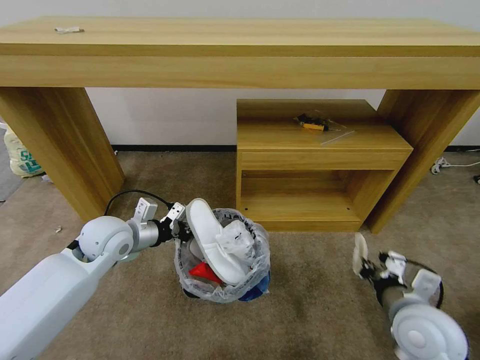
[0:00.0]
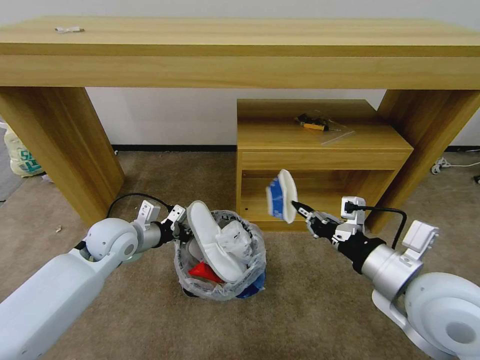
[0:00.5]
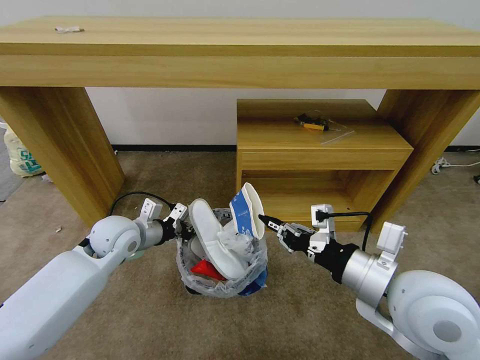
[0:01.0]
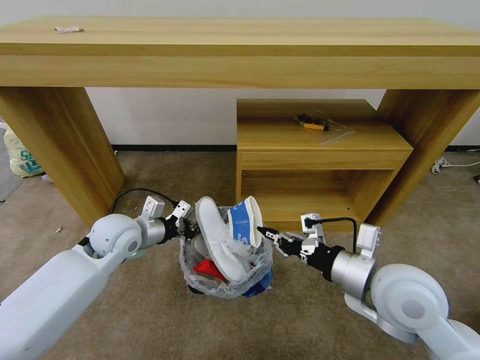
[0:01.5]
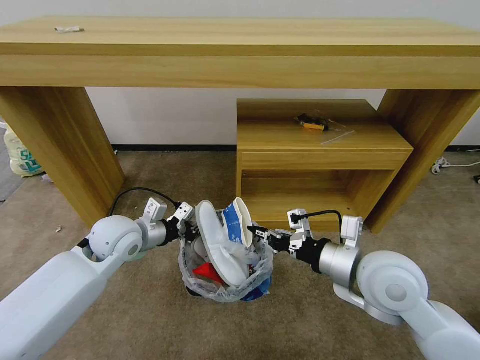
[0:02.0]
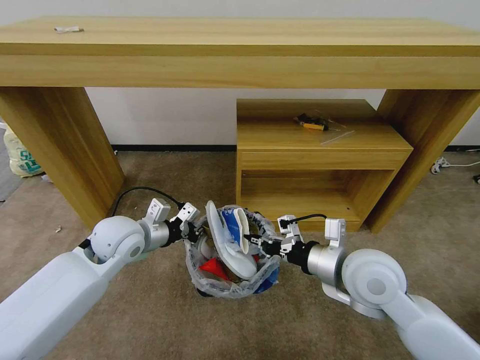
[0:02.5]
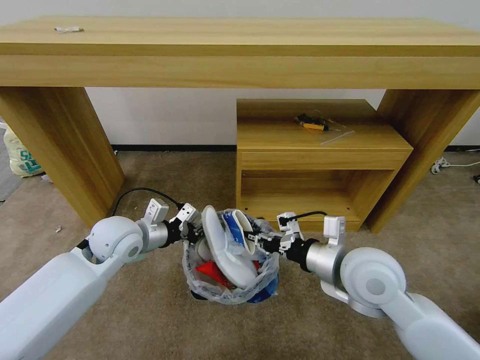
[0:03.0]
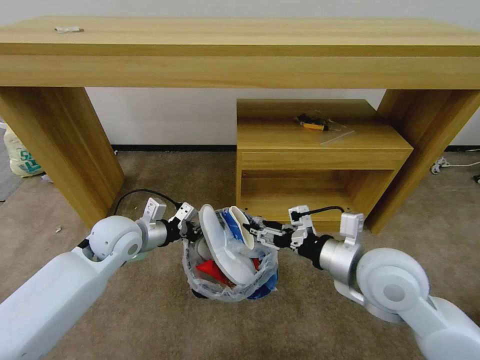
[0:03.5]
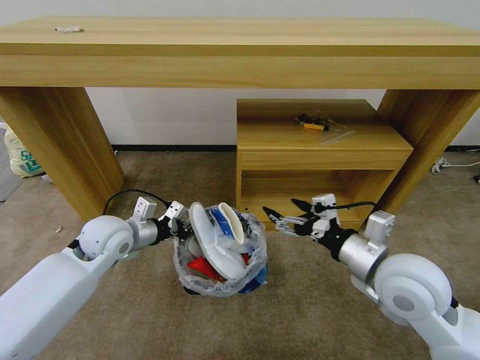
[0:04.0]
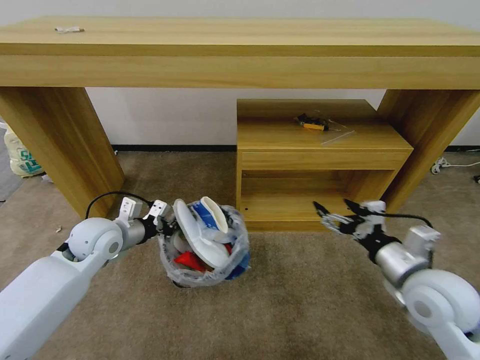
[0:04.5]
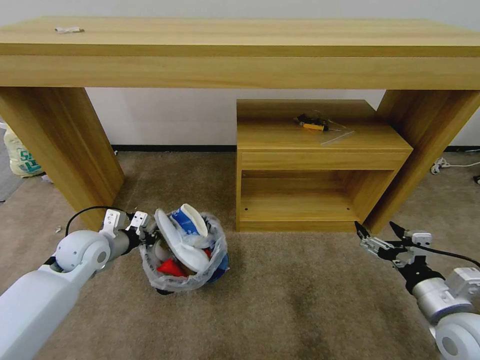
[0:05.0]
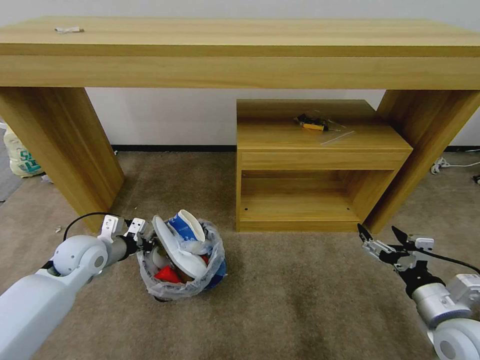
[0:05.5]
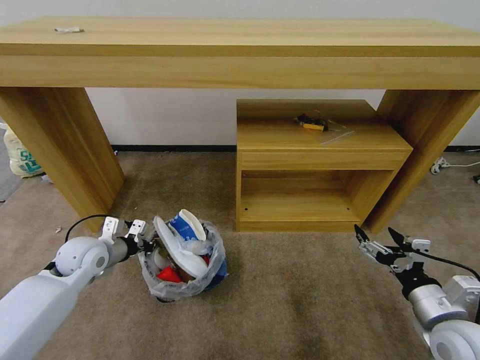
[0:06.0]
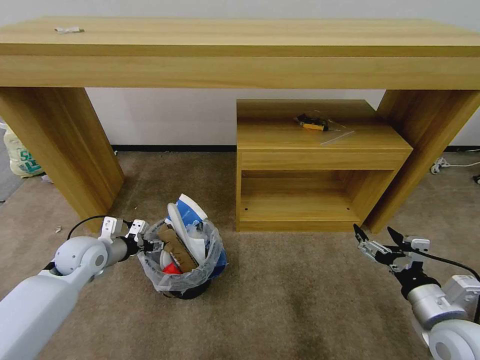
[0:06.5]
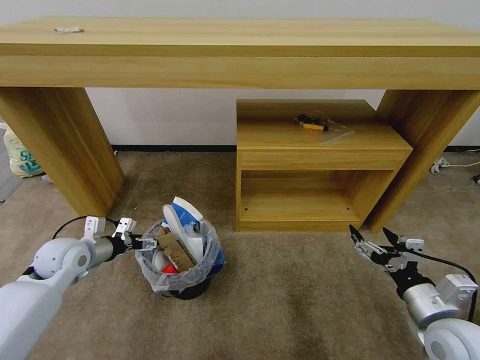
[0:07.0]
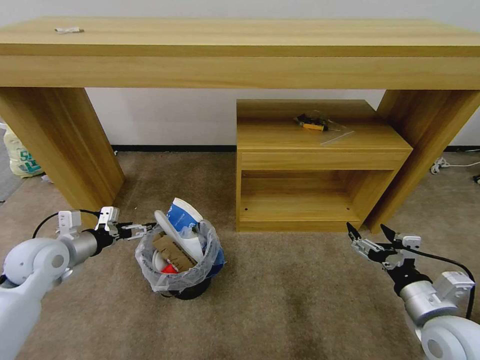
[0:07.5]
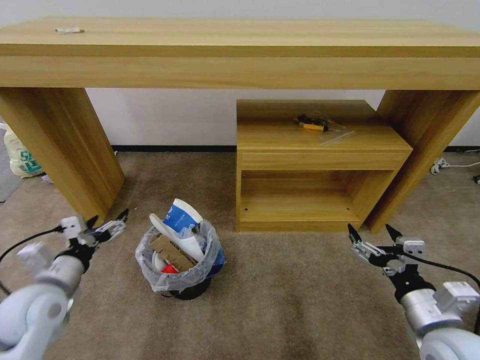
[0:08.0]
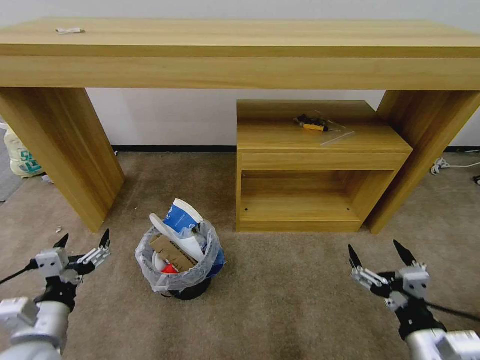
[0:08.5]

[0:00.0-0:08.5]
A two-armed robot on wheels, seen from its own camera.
Task of the whole recording: Pick up the trash bin and place the garbage on the floor into it.
0:00.0 to 0:02.0: The right gripper goes approximately 10 cm to the left, upward and forward.
0:02.0 to 0:04.0: The right gripper opens up.
0:04.0 to 0:06.5: The right gripper travels to the right, downward and backward by roughly 15 cm; the left gripper is displaced to the left and downward by approximately 10 cm, and opens its fingers.
0:06.5 to 0:08.5: The right gripper goes roughly 10 cm backward and to the left. Meanwhile the left gripper travels backward by roughly 25 cm, and opens up.

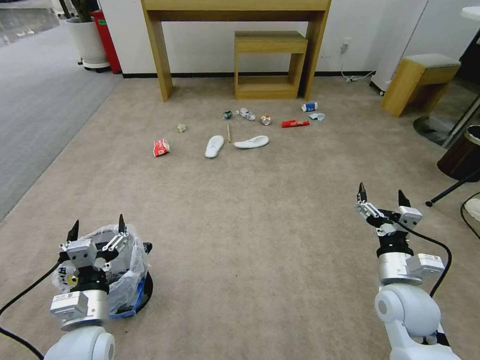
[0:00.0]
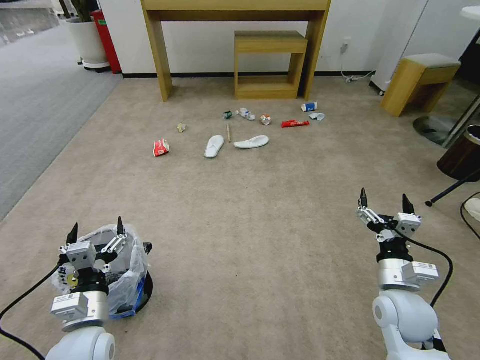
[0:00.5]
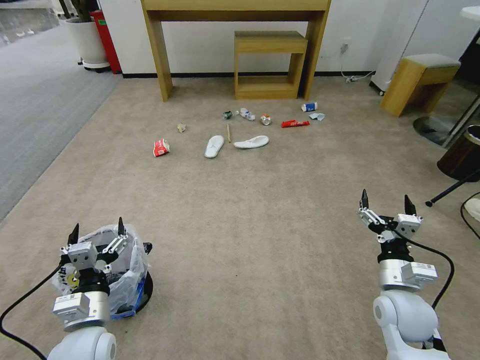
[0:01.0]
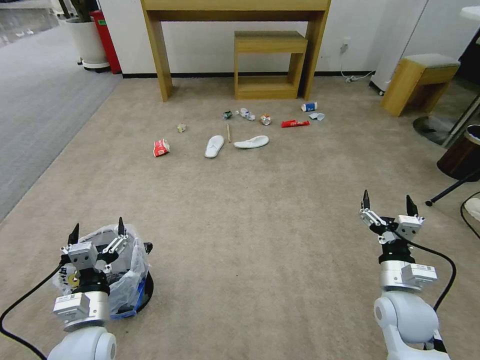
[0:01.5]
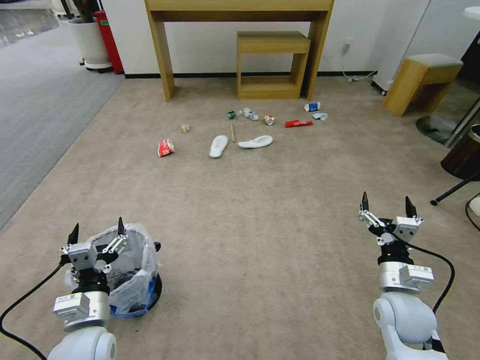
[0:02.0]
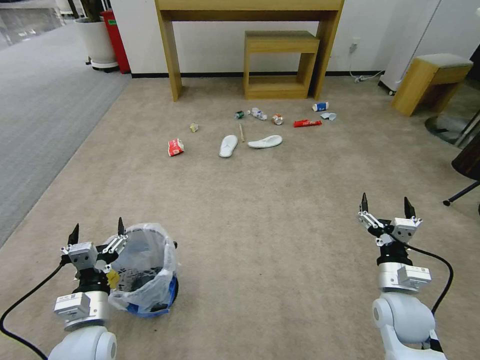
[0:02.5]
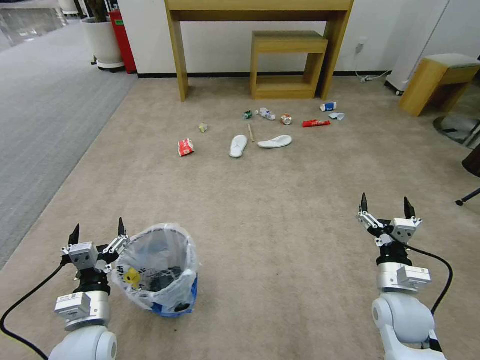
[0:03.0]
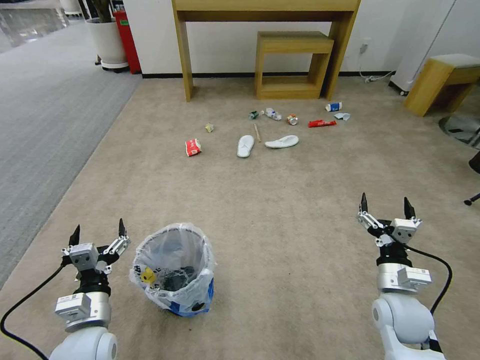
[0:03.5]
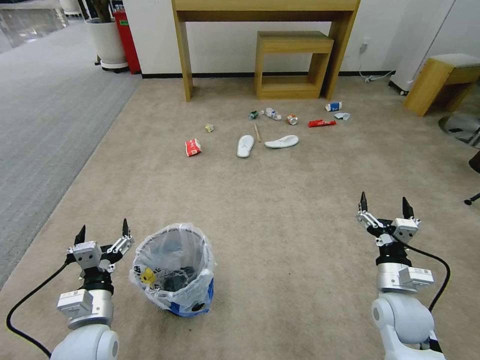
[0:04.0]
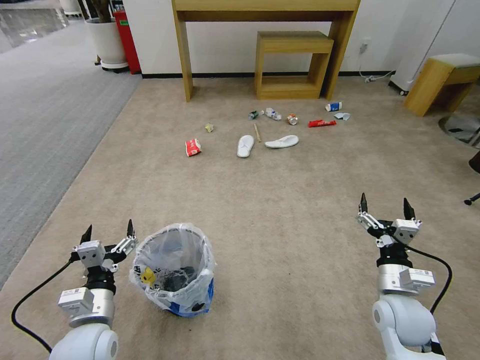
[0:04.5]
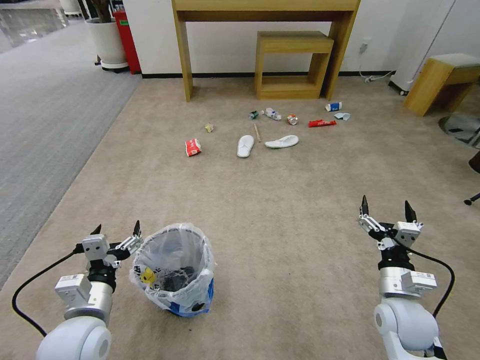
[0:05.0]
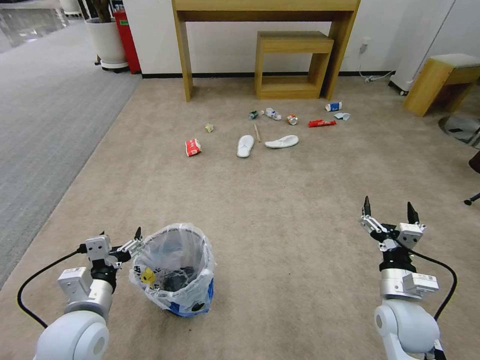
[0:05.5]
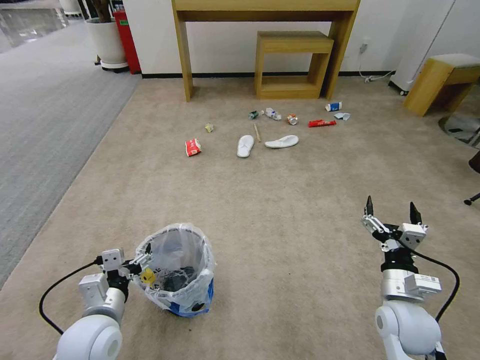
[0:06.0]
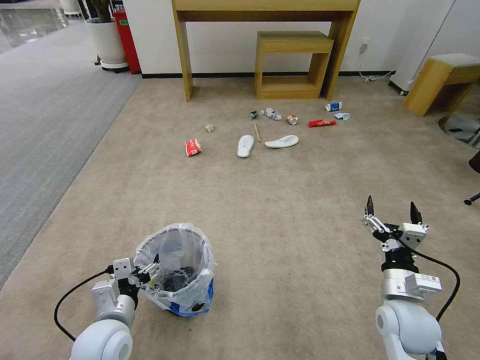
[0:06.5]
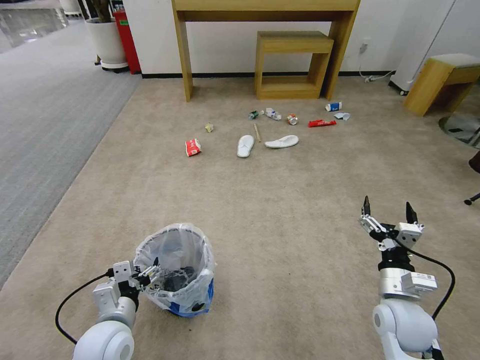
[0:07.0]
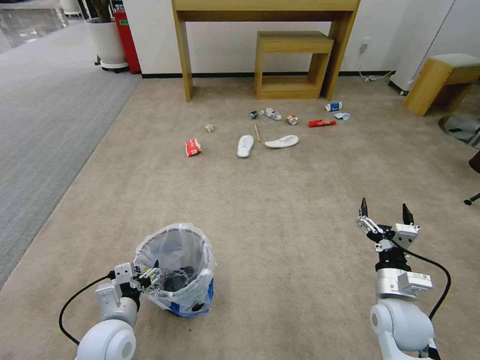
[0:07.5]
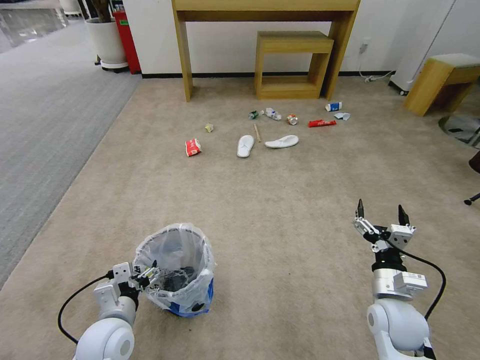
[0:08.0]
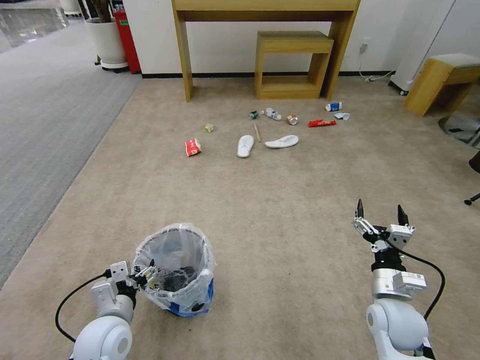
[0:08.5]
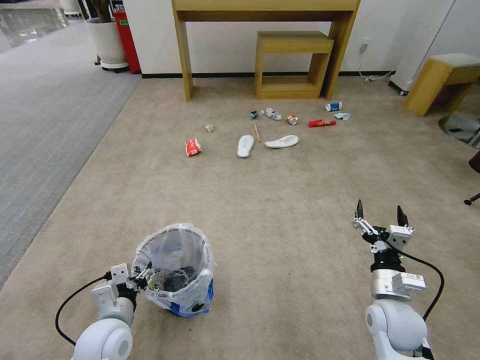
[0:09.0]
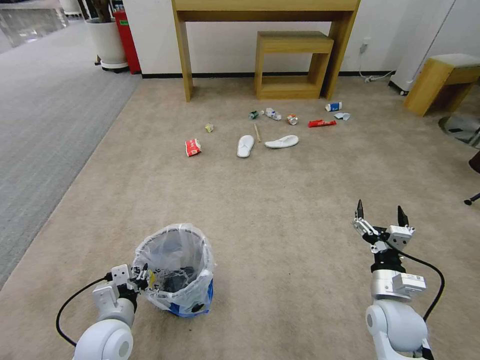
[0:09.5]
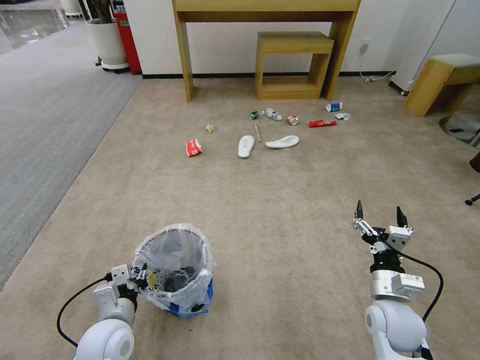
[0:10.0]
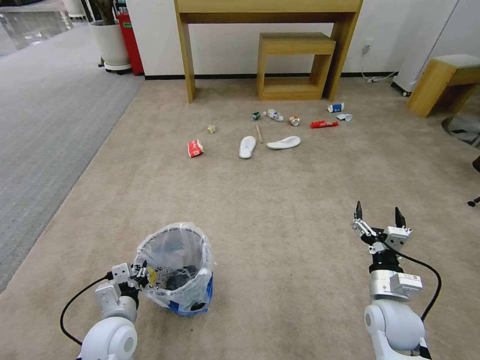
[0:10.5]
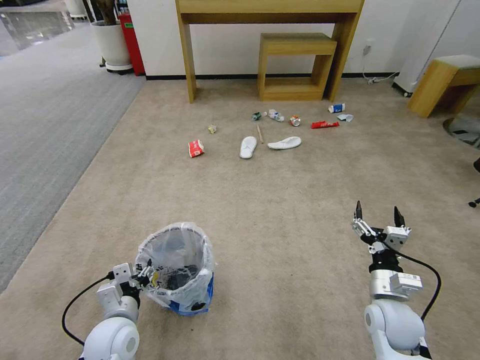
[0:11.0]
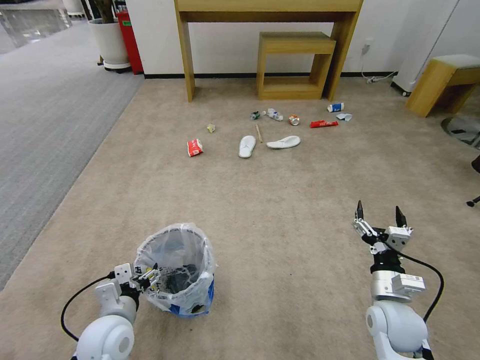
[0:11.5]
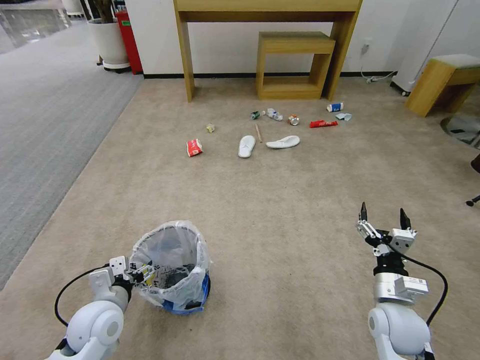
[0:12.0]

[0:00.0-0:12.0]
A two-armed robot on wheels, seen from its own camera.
Task of the whole recording: Pick up the trash bin and place the garbage on the floor into it.
0:06.0 to 0:08.0: There are only small adjustments of the grippers.
0:08.0 to 0:10.0: The left gripper closes.
0:10.0 to 0:12.0: The left gripper opens up.

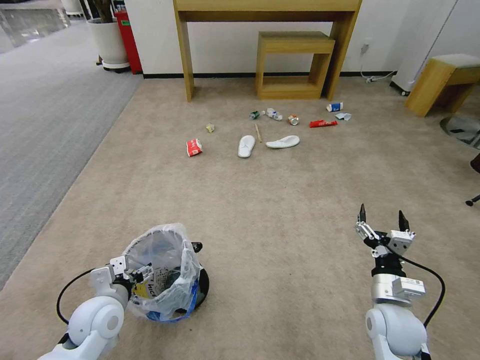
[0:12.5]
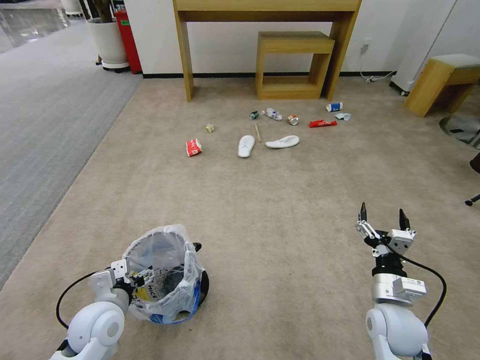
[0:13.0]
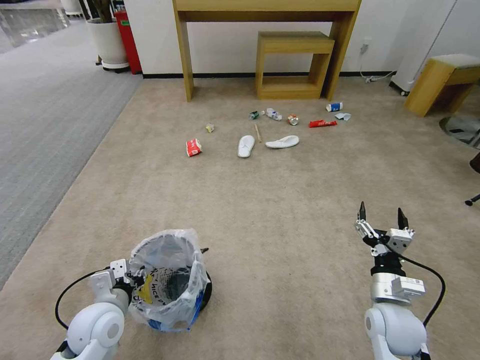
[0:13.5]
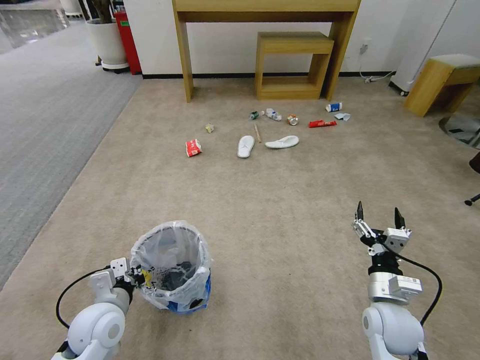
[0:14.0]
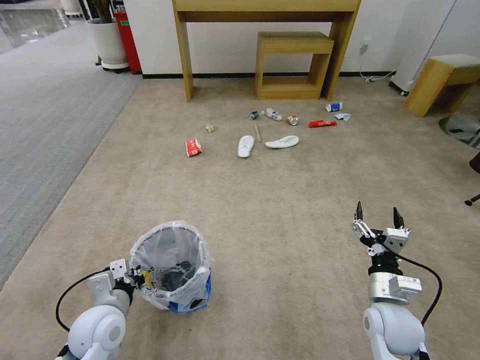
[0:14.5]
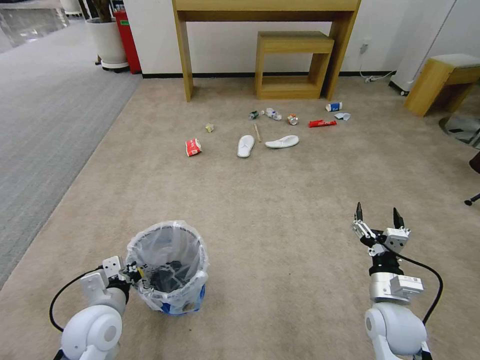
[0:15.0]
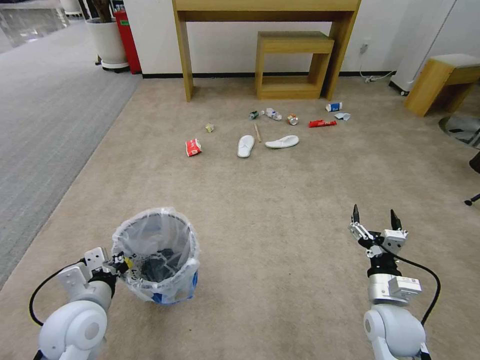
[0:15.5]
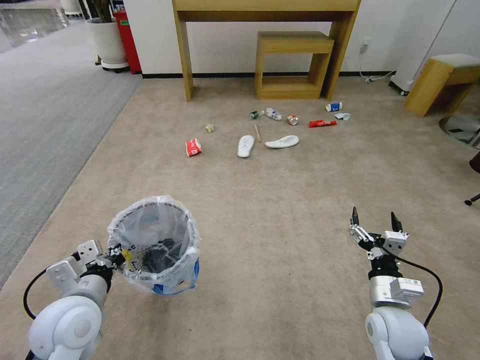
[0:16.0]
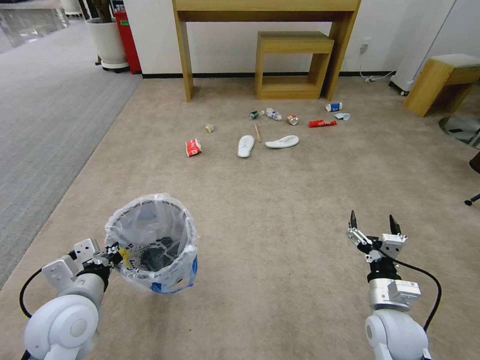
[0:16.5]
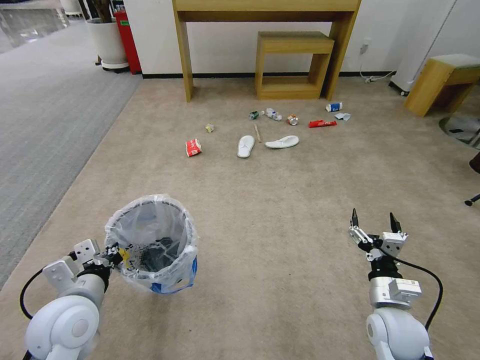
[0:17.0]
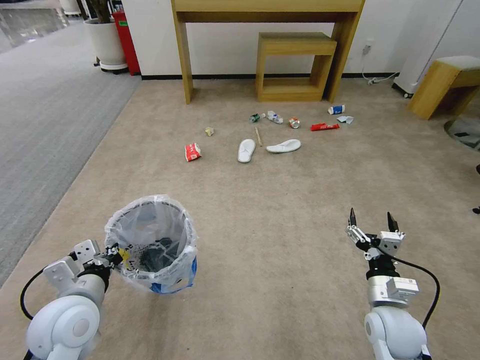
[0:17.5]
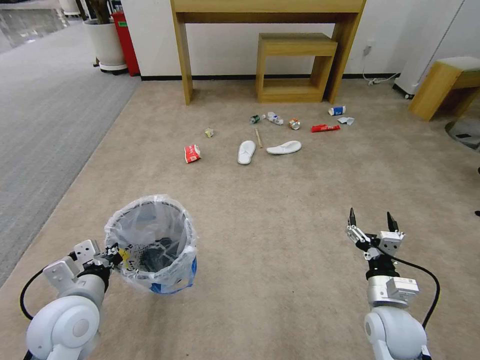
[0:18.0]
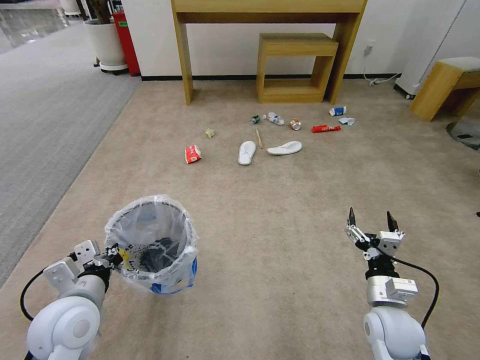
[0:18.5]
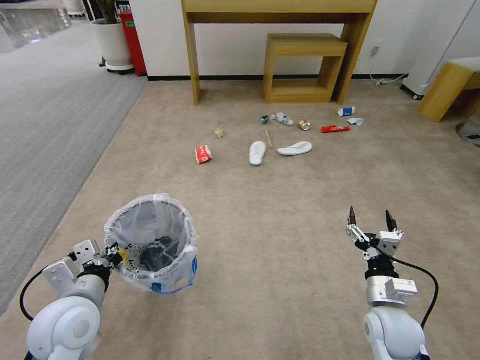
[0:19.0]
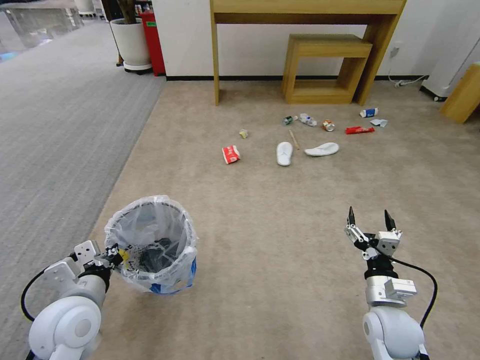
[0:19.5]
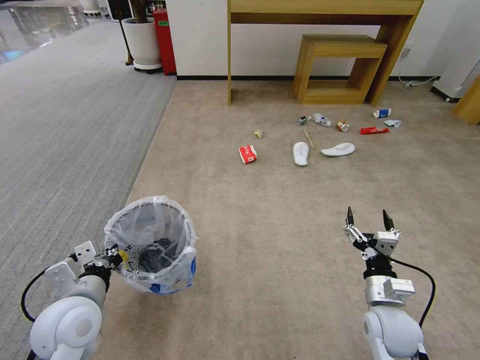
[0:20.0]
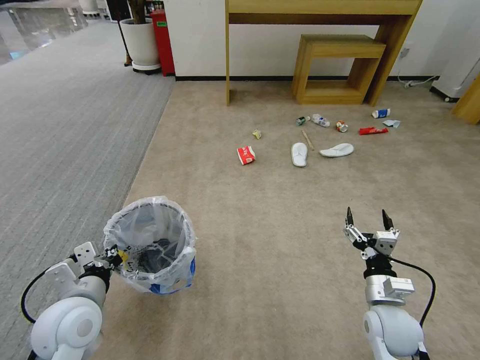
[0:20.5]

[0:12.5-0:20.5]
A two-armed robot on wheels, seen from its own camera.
Task of the whole recording: Pick up the trash bin and place the garbage on the floor into it.
0:12.5 to 0:14.5: The left gripper closes up.
0:14.5 to 0:16.5: The left gripper heads upward, covering roughly 10 cm.
0:16.5 to 0:18.5: Both grippers stay put.
